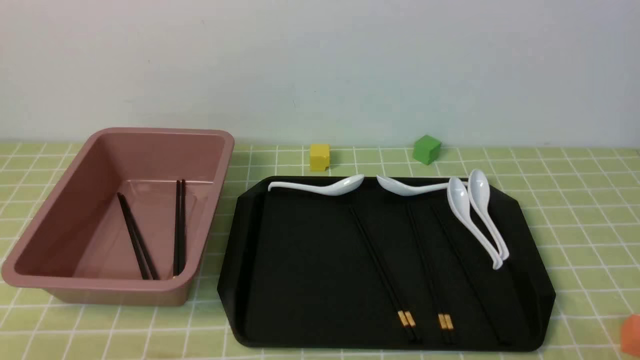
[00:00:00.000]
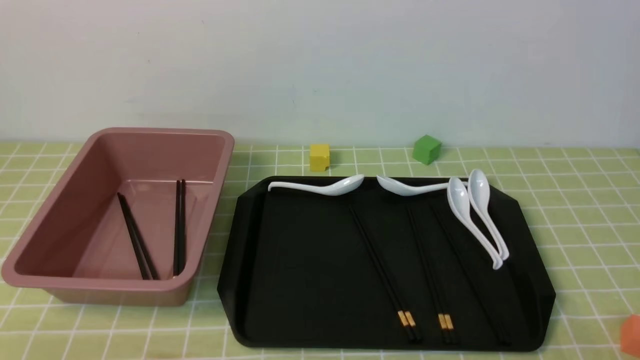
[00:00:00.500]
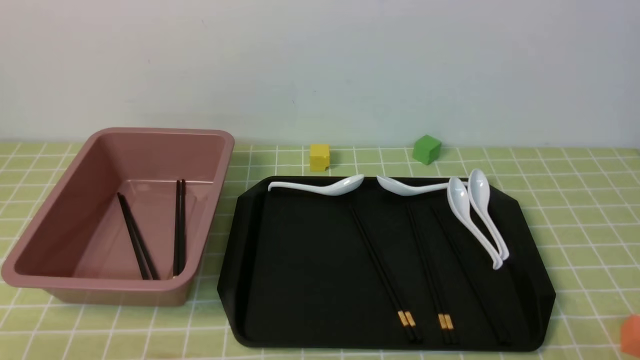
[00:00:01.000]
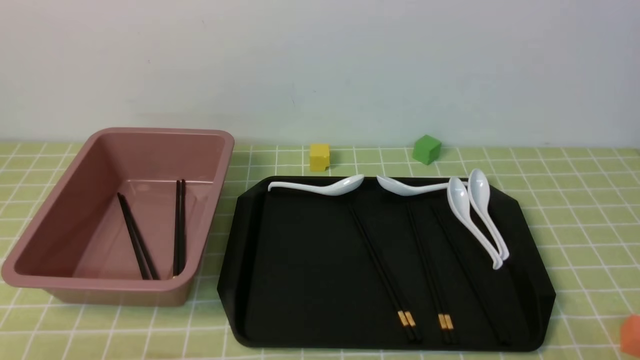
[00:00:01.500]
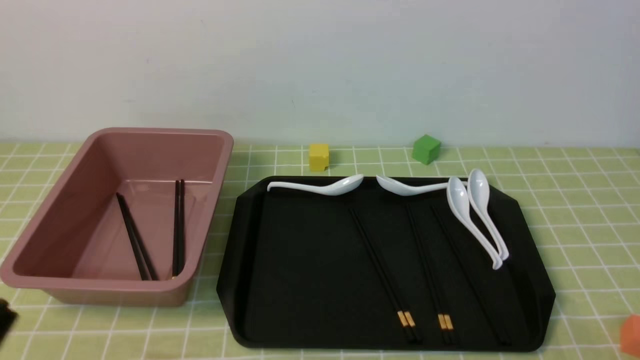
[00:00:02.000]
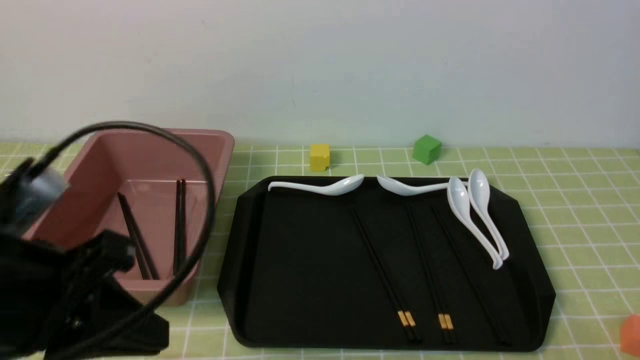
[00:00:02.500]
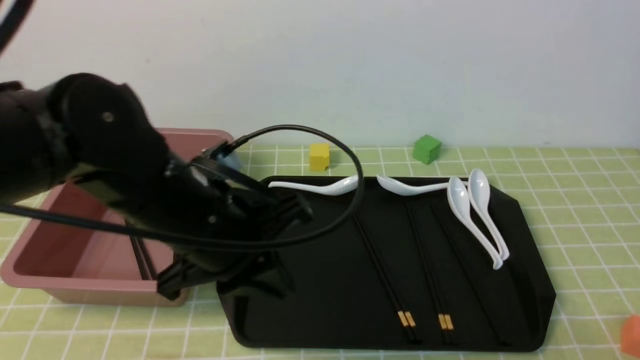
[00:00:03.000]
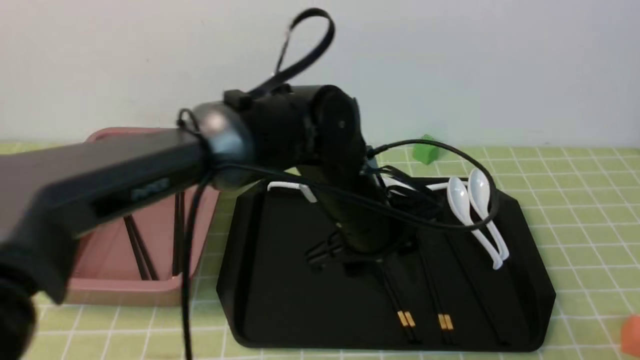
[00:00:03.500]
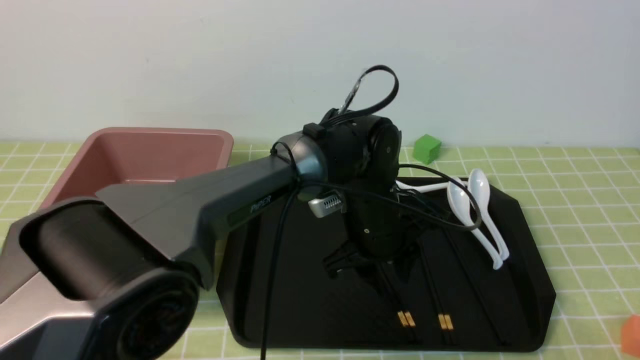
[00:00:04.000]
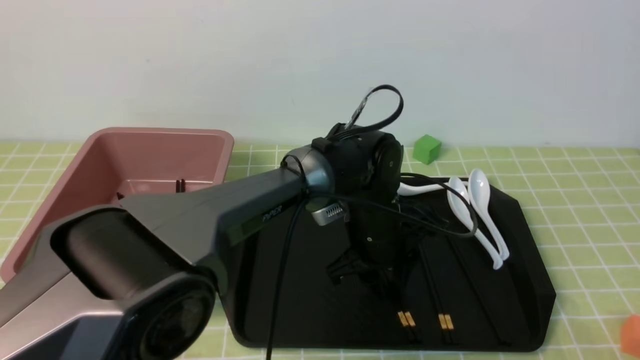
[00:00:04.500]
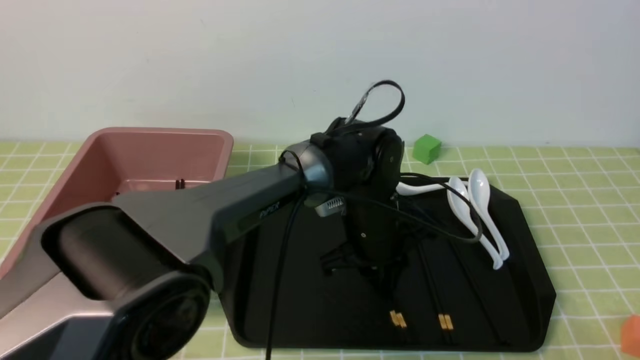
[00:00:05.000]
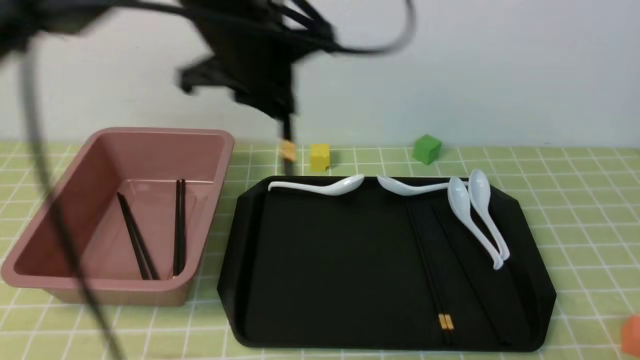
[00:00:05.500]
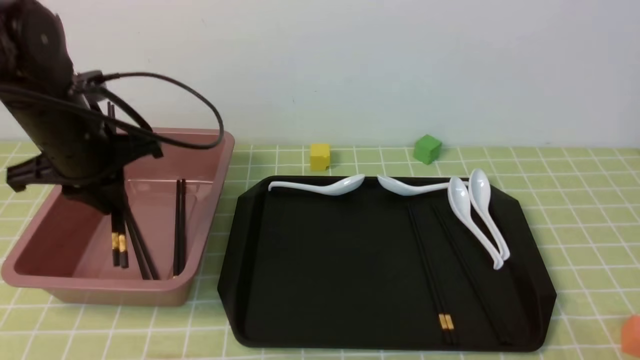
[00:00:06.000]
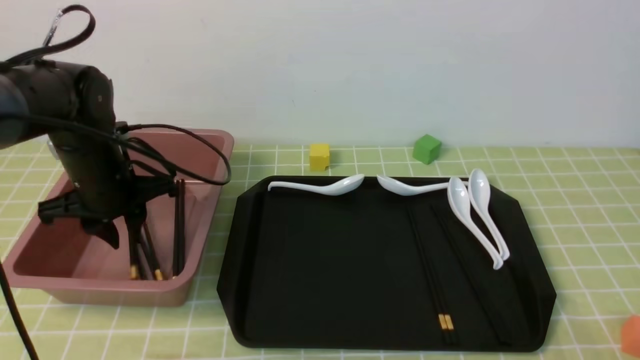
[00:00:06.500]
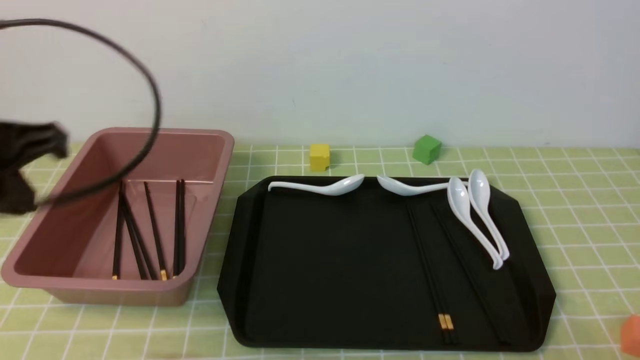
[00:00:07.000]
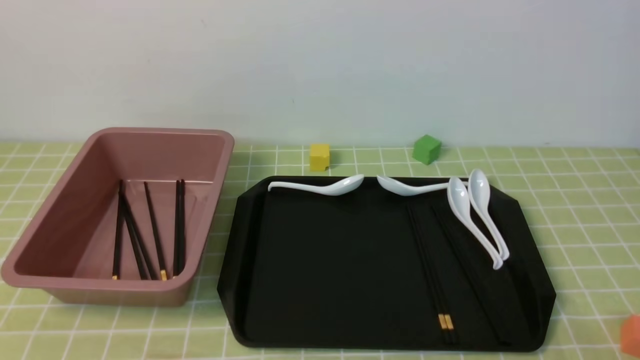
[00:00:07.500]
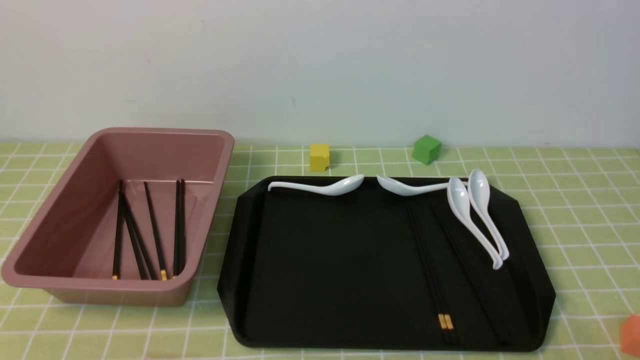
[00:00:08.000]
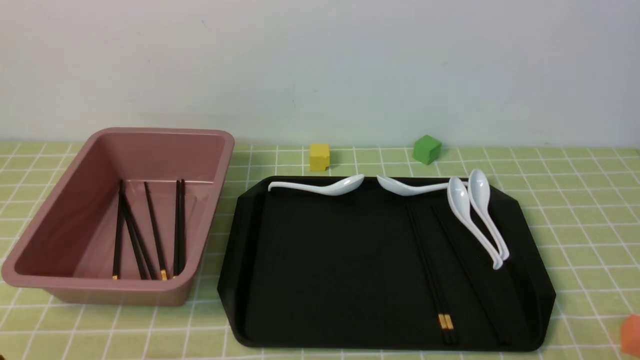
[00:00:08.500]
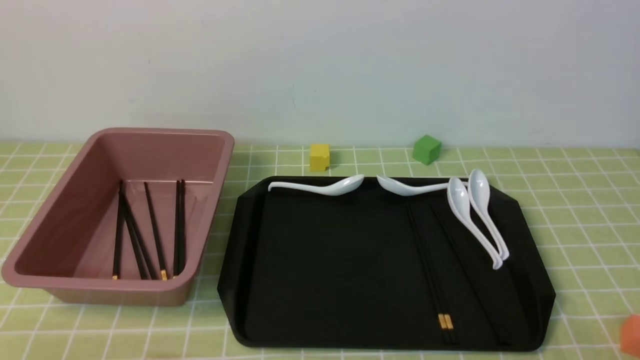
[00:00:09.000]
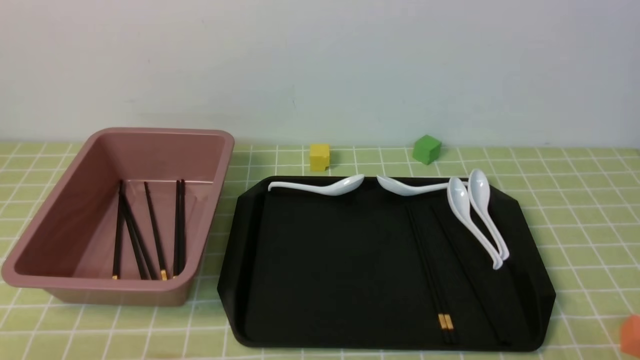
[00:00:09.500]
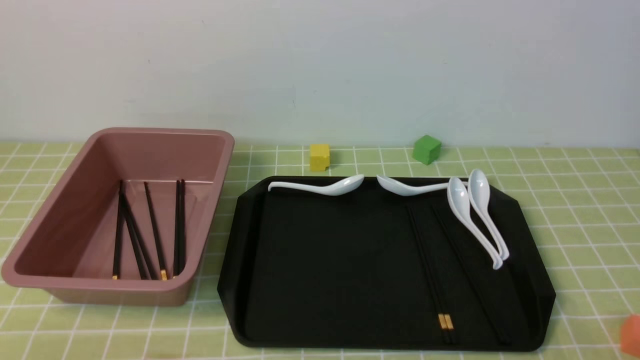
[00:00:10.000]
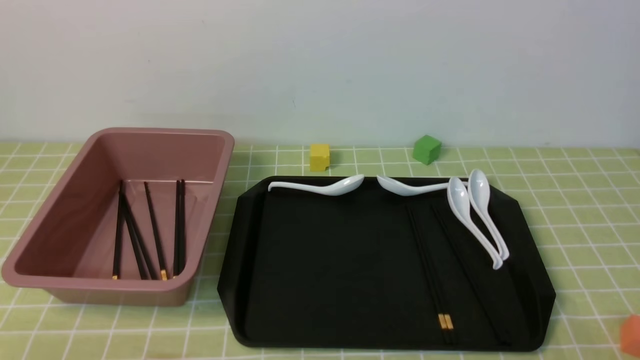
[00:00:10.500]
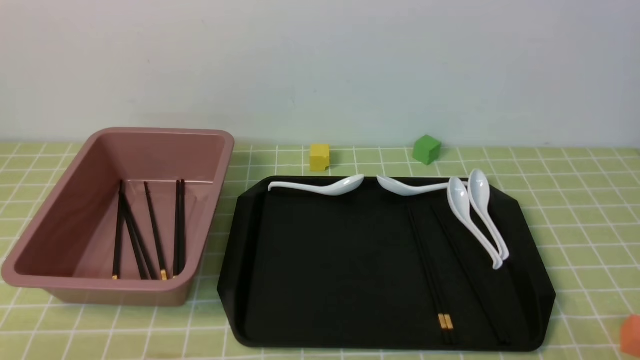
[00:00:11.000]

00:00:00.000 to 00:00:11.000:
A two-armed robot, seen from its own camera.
Step, 00:00:00.000 to 00:00:05.000: use the left arm to grab a pair of chopsticks.
Step, 00:00:05.500 to 00:00:06.500: use the left arm to put the chopsticks into the lunch box.
00:00:02.000 to 00:00:03.500: The left gripper heads forward and to the right, covering approximately 40 cm, and opens its fingers.
00:00:03.500 to 00:00:05.500: The left gripper goes approximately 20 cm upward and to the left, and closes up.
00:00:05.500 to 00:00:07.500: The left gripper shifts approximately 35 cm backward and to the left, and closes.
00:00:09.000 to 00:00:11.000: The two grippers keep their place.
